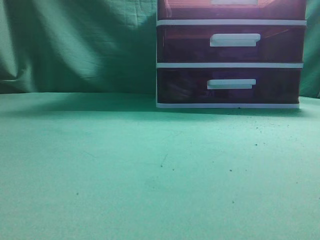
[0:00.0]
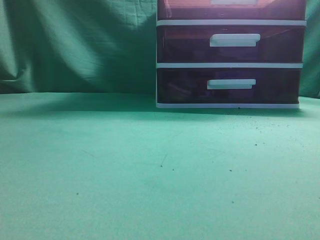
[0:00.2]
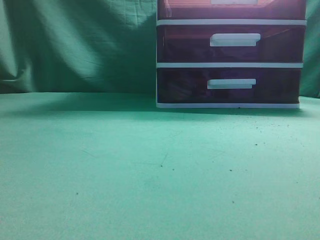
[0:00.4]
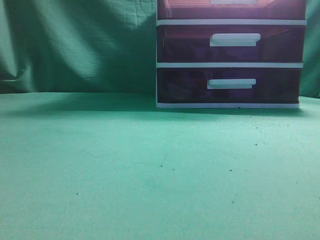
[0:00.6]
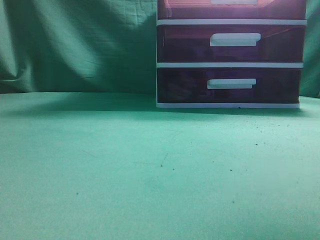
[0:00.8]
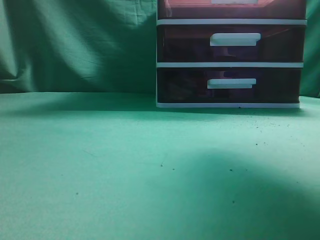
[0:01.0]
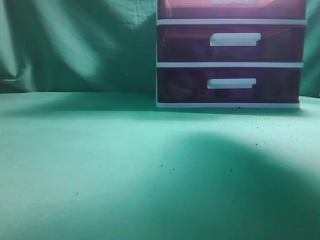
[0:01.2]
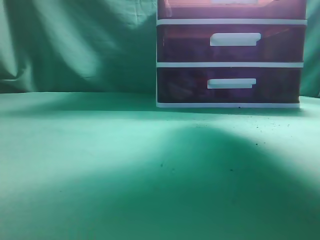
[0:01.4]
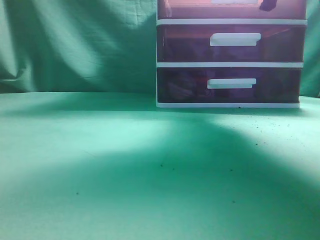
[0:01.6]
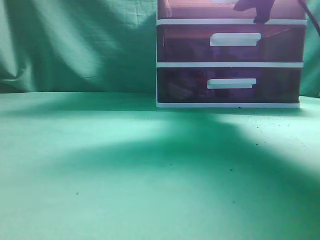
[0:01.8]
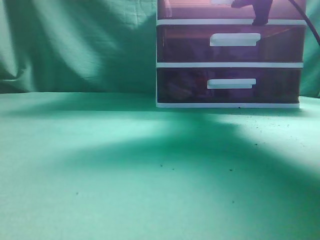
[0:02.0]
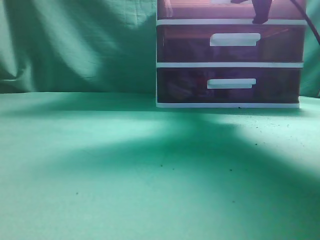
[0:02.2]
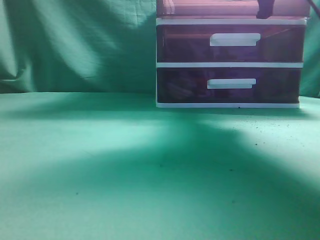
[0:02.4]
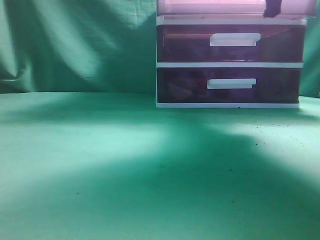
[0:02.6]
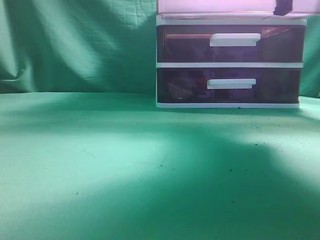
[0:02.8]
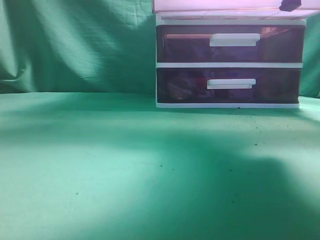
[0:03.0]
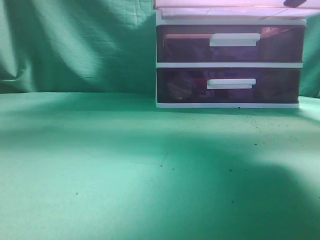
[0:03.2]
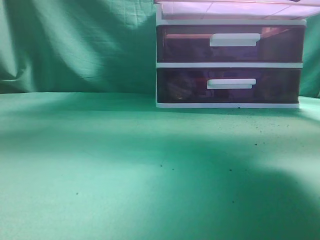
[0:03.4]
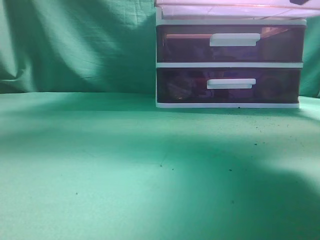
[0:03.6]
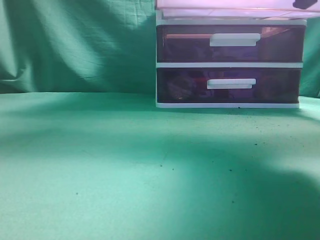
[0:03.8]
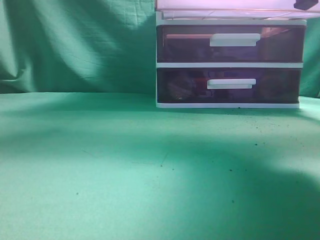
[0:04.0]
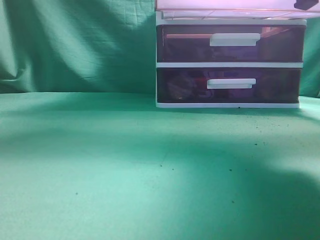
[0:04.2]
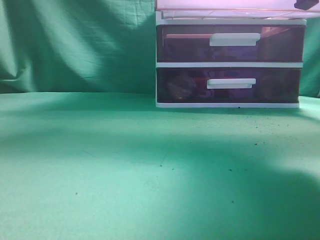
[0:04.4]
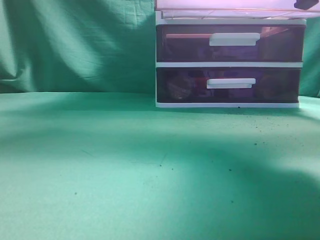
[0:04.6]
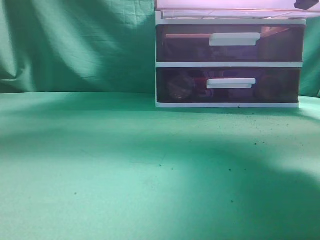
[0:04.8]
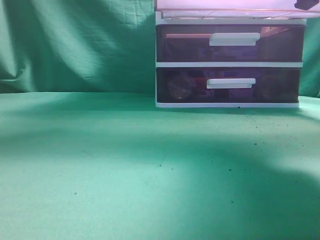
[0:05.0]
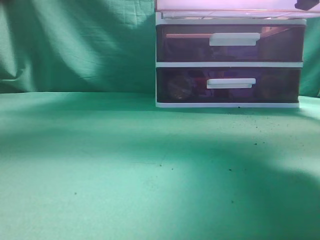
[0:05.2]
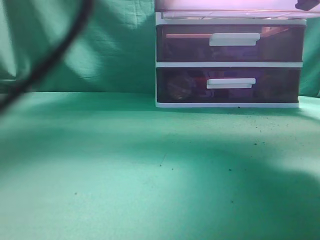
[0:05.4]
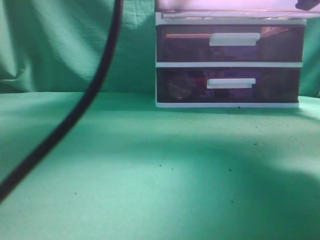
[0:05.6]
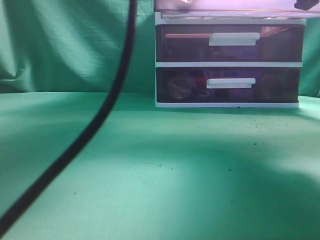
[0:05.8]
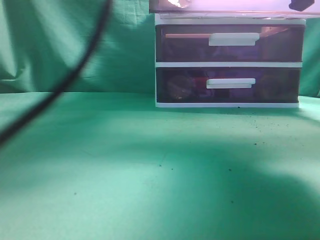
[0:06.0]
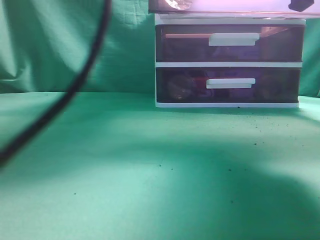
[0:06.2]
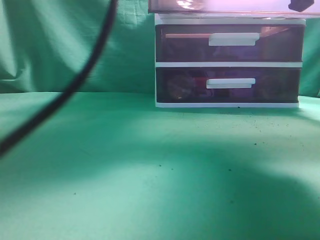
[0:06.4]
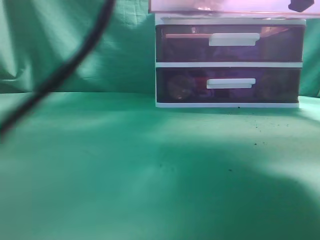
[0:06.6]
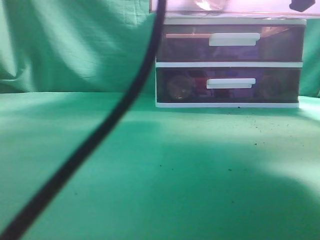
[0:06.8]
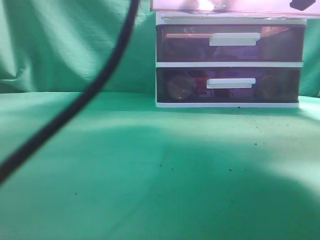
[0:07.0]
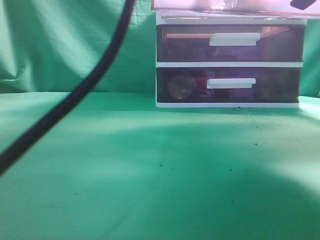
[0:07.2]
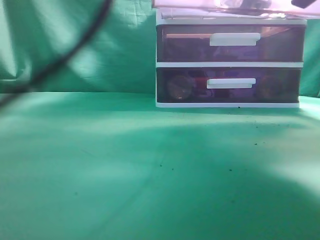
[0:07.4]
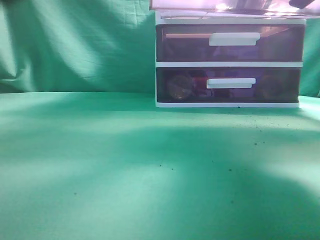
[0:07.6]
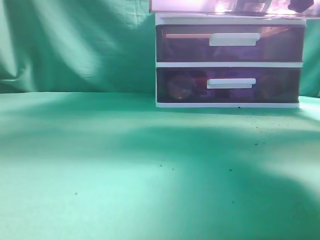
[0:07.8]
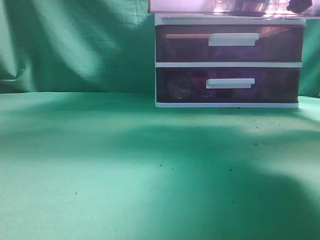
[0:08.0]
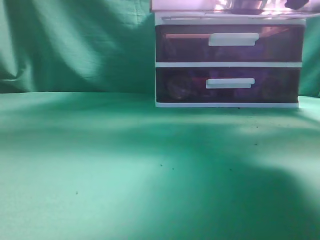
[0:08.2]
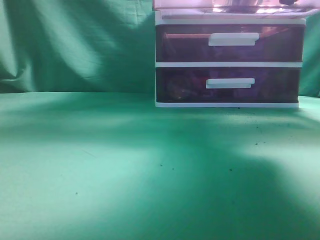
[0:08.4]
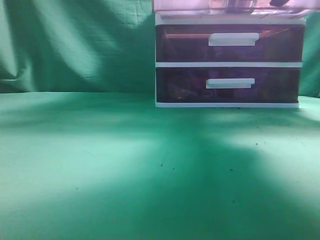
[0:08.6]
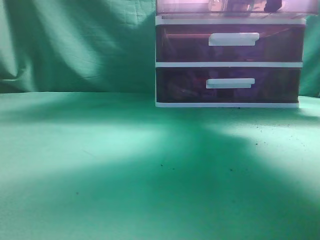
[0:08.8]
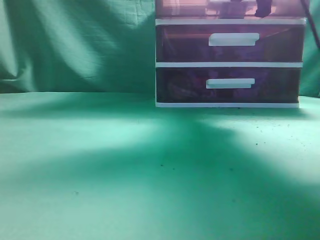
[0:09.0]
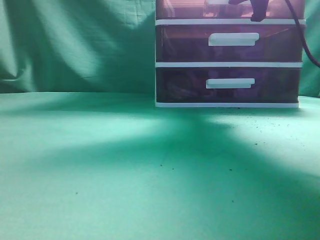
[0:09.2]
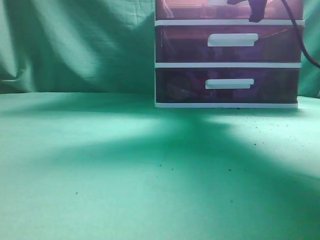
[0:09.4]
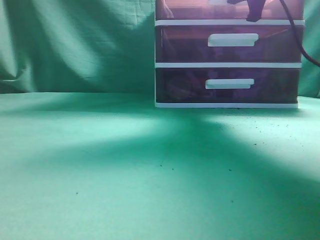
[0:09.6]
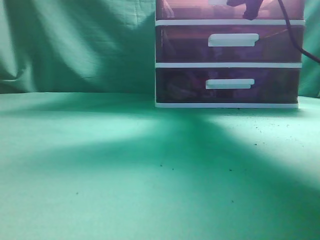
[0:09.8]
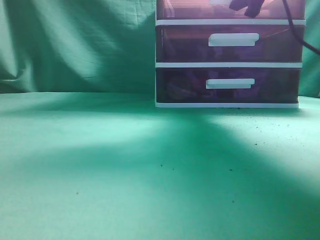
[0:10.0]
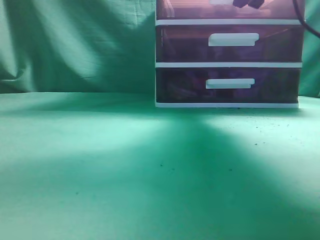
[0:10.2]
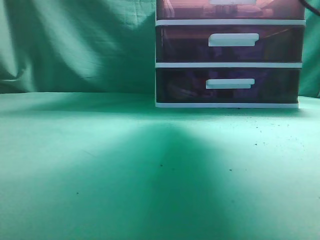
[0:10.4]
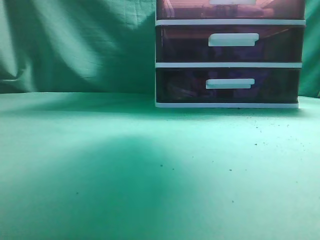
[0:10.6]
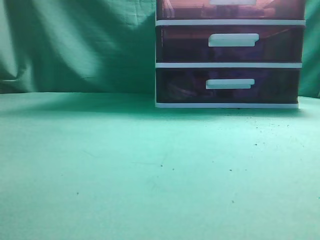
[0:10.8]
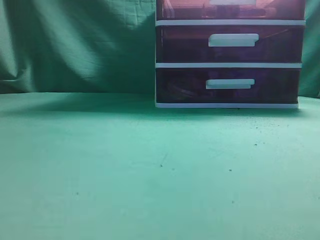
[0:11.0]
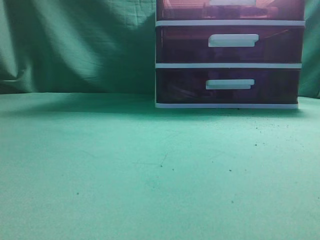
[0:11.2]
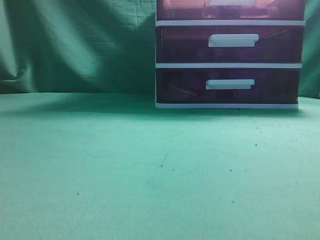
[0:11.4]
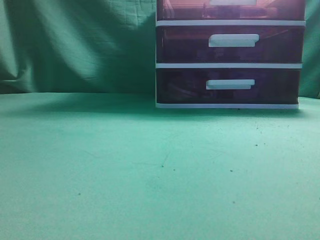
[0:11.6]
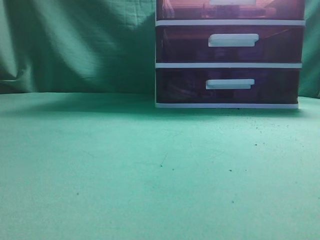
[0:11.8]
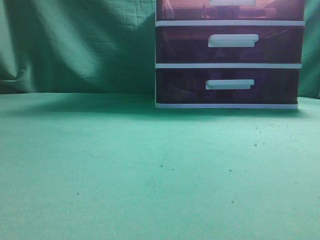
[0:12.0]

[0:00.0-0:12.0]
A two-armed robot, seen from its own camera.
Task of the whole recording: place the water bottle into the drawer.
Step, 0:00.0 to 0:03.2: Open the drawer.
Step, 0:03.4 to 0:07.6: Place the water bottle inside the drawer.
Step, 0:08.0 to 0:10.4: Close the drawer.
0:00.0 to 0:01.6: The right gripper is displaced forward by approximately 35 cm, and opens its fingers.
0:01.6 to 0:03.0: The right gripper heads backward, covering roughly 5 cm, and closes up.
0:03.0 to 0:04.4: The left gripper is displaced to the right, upward and forward by roughly 15 cm.
0:04.4 to 0:06.0: The left gripper goes roughly 20 cm to the right, forward and downward.
0:07.6 to 0:09.0: The left gripper heads to the left, upward and backward, covering roughly 30 cm, and closes, while the right gripper travels forward by roughly 10 cm.
0:09.0 to 0:10.4: The left gripper heads to the left and downward, covering some 10 cm. Meanwhile the right gripper opens.
0:10.4 to 0:12.0: The left gripper moves downward, backward and to the left, about 30 cm. Meanwhile the right gripper heads backward, covering some 35 cm, and closes.
